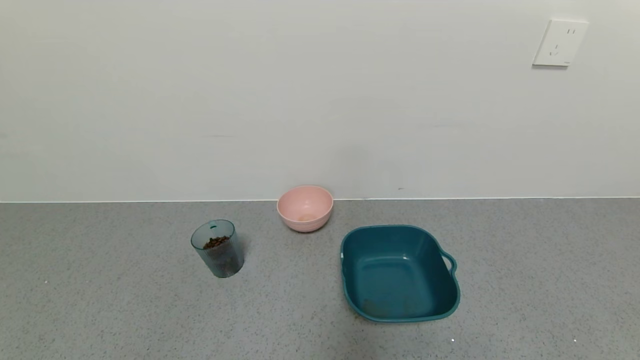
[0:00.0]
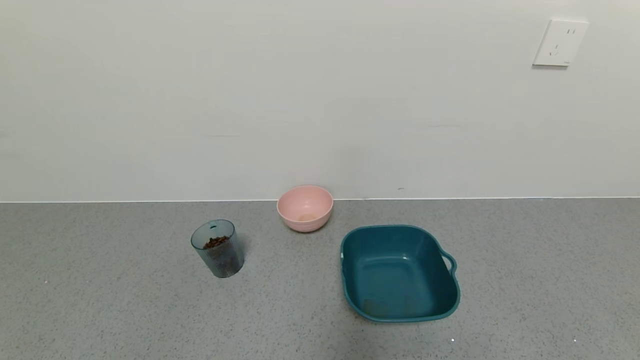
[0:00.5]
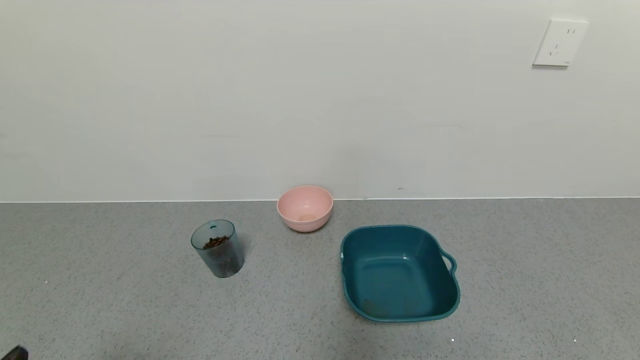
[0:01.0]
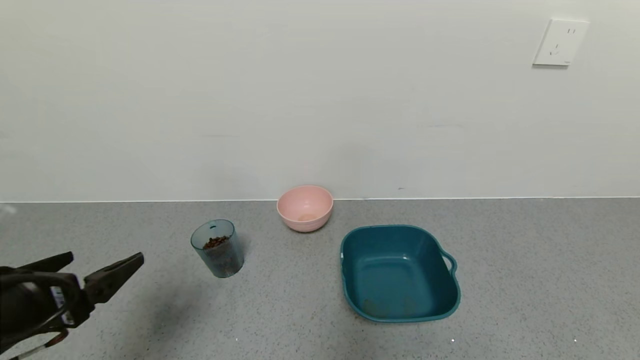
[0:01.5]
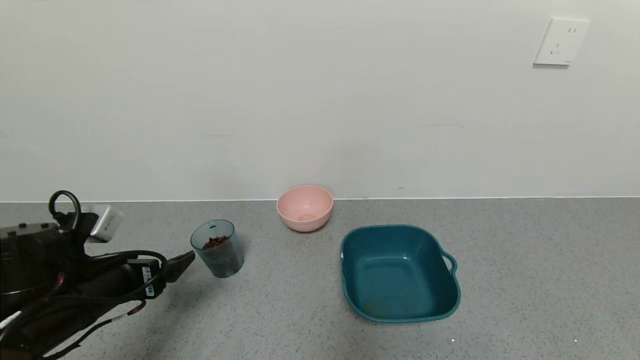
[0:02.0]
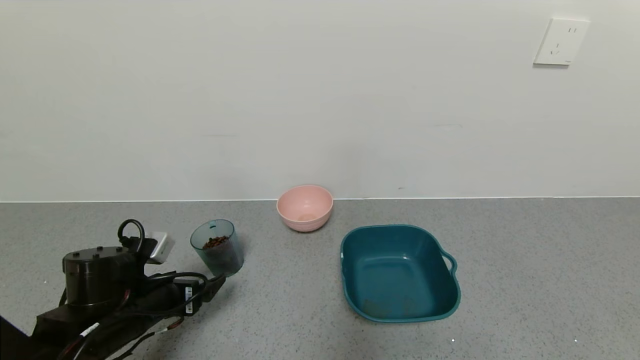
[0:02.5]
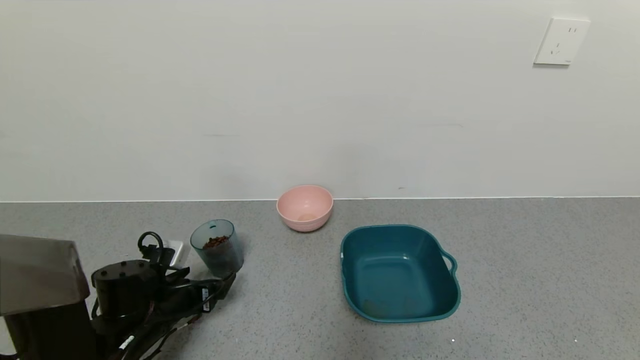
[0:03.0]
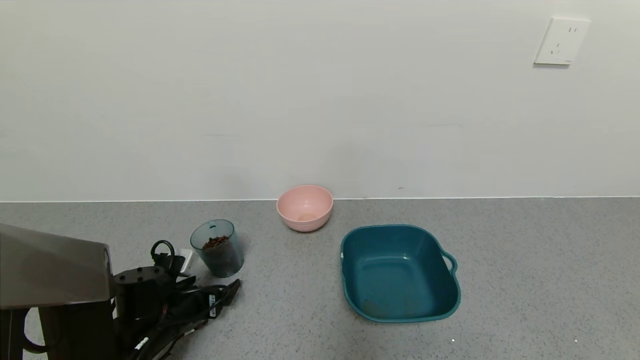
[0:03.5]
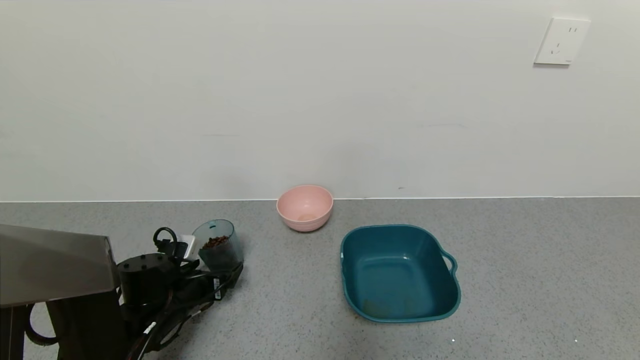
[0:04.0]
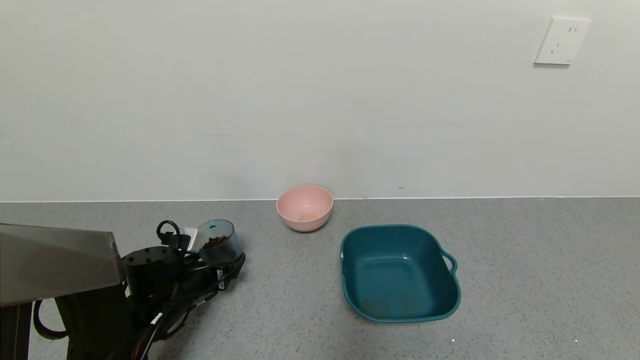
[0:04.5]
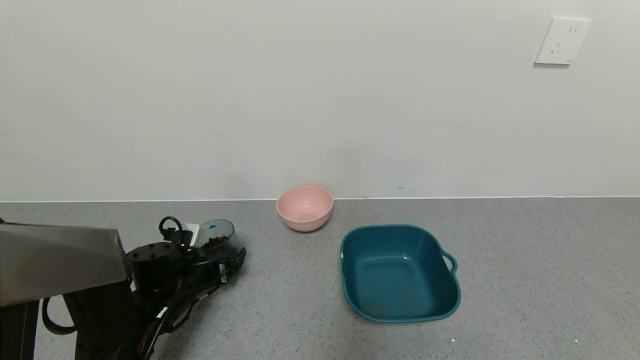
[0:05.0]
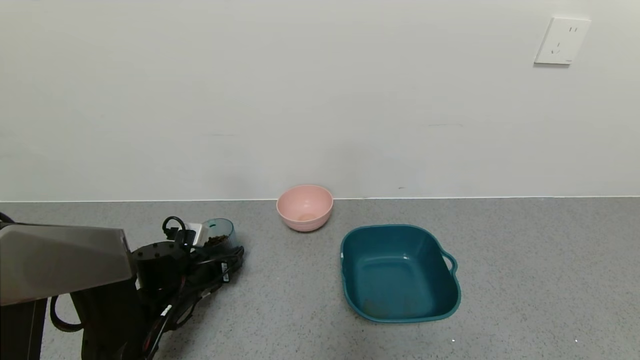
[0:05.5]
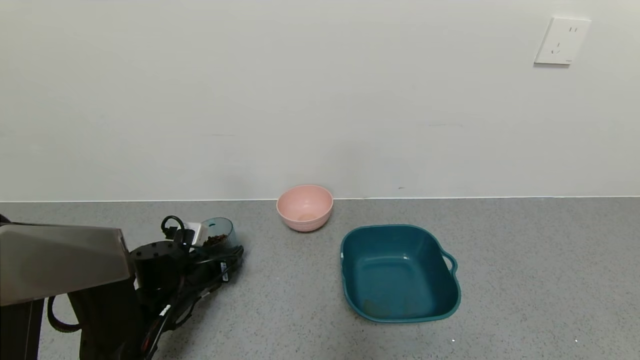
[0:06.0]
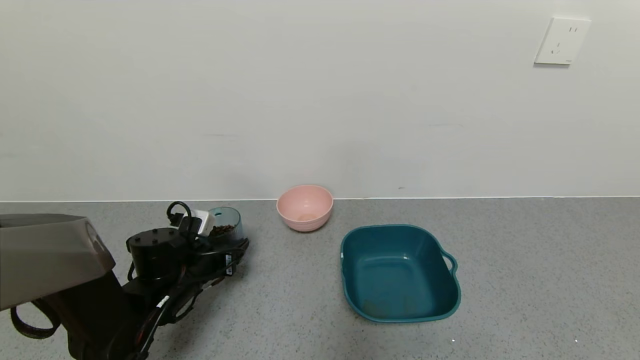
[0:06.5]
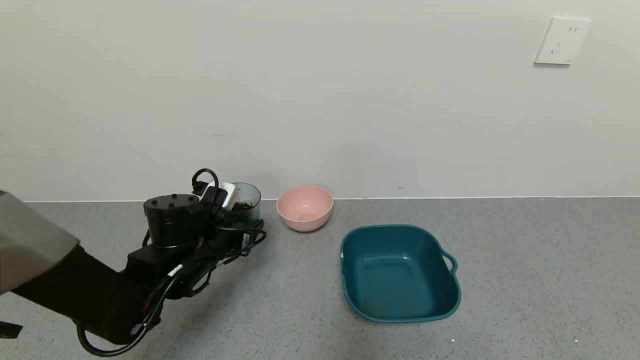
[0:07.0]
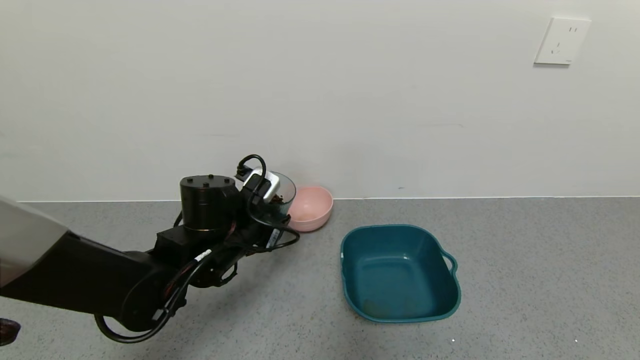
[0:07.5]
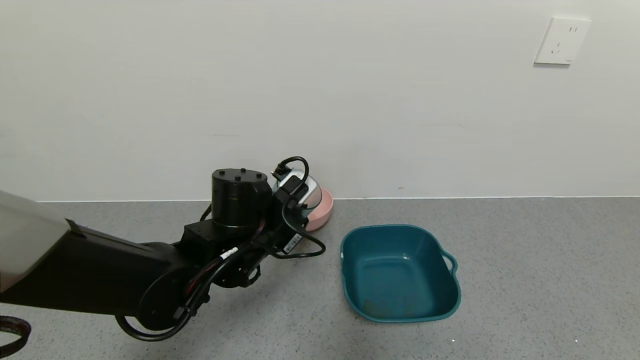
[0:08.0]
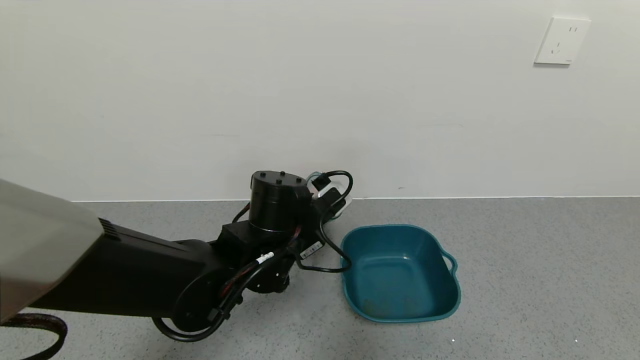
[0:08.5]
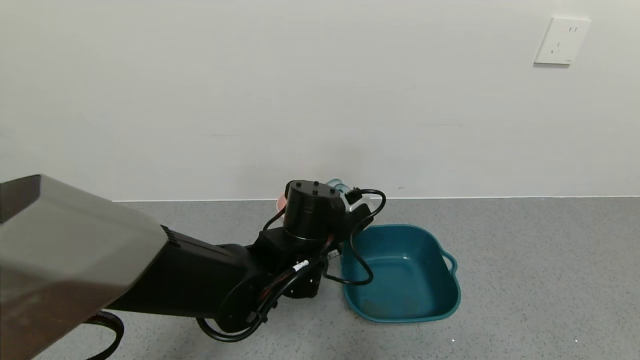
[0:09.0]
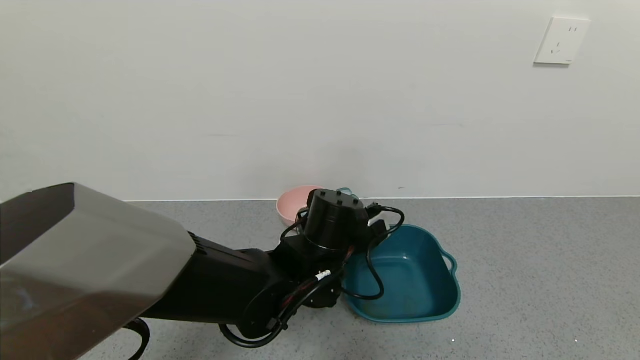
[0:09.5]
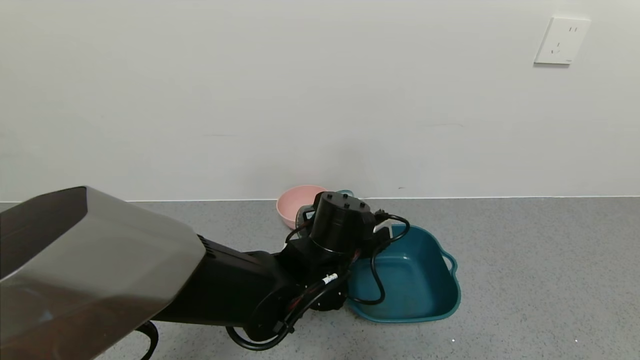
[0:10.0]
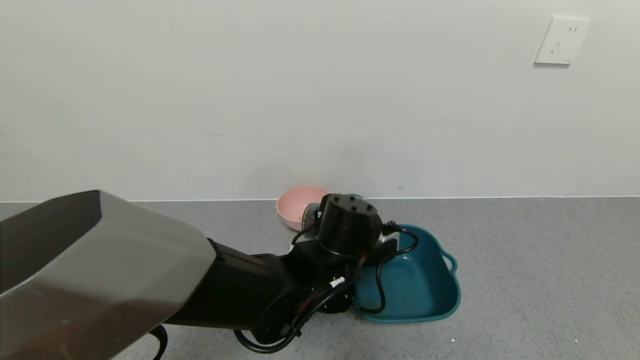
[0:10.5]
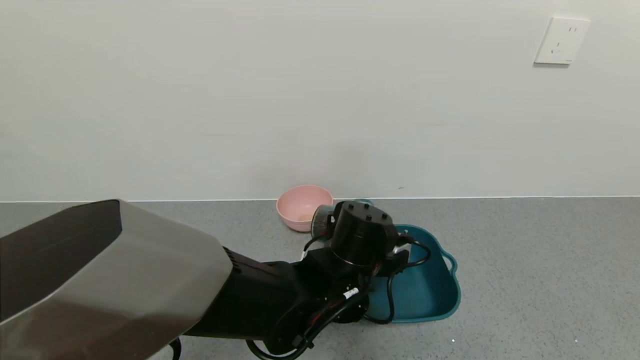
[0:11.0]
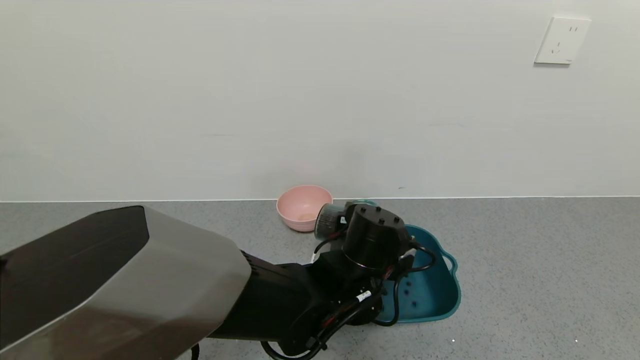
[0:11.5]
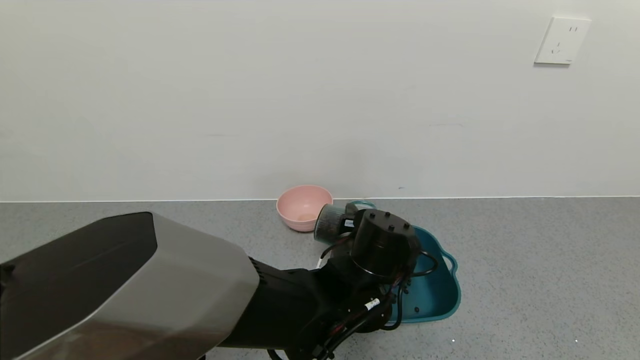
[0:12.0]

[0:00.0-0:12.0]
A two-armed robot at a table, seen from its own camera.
Task of the whole recording: use a gripper to pick up the cup and pour the solid into a bowl or tray.
Step, 0:00.0 to 0:06.0: Grasp the glass of coffee beans with the left gripper.
0:00.0 to 0:02.0: The left gripper is displaced forward by some 25 cm.
0:02.0 to 0:04.0: The left gripper moves downward and forward, some 15 cm.
0:04.0 to 0:06.0: The left gripper closes.
0:06.0 to 0:08.0: The left gripper is displaced to the right and upward by about 20 cm.
0:08.0 to 0:10.0: The left gripper moves to the right, about 10 cm.

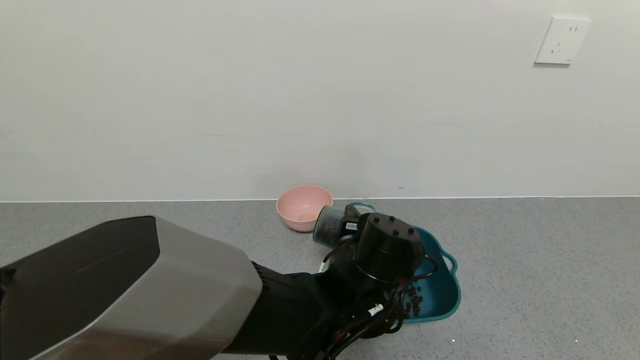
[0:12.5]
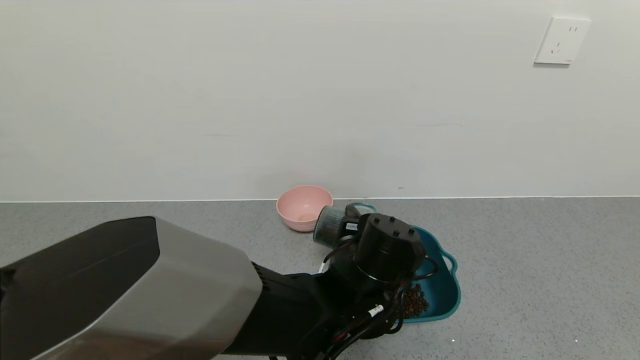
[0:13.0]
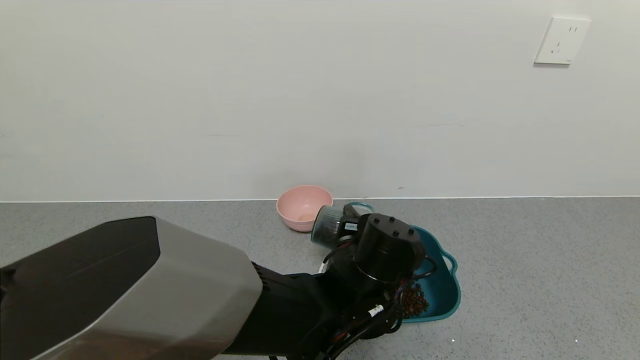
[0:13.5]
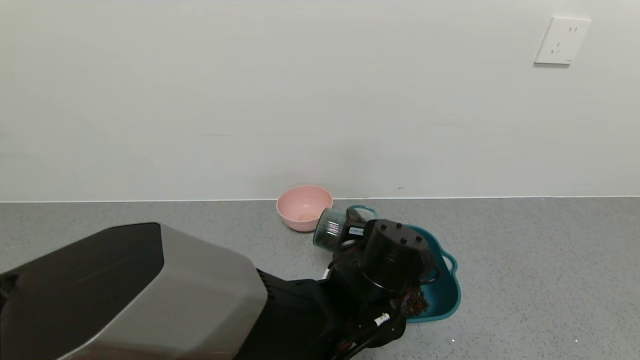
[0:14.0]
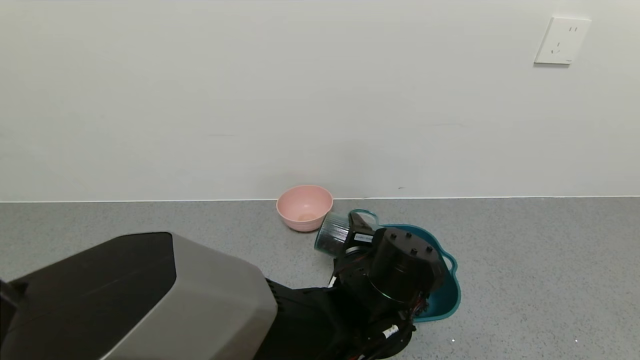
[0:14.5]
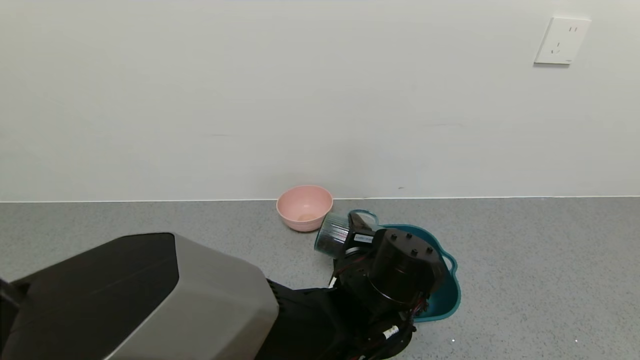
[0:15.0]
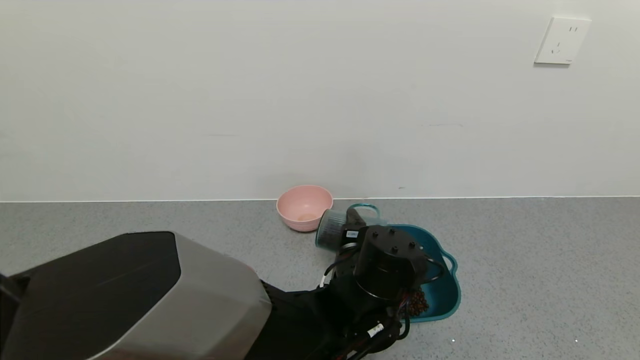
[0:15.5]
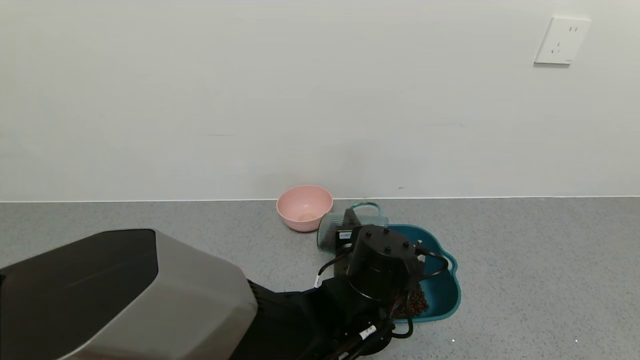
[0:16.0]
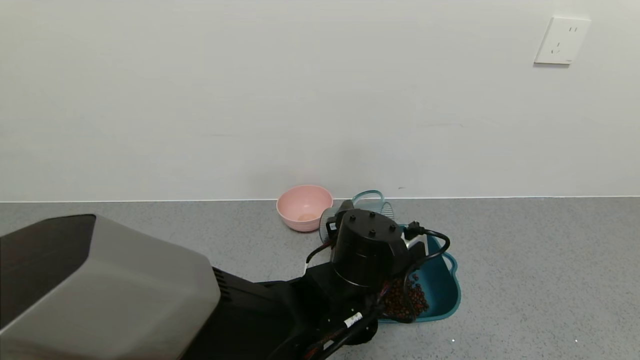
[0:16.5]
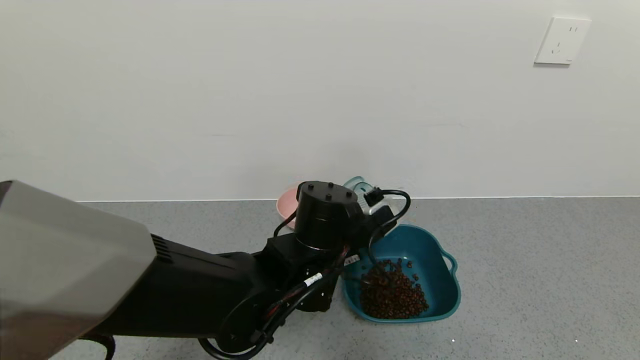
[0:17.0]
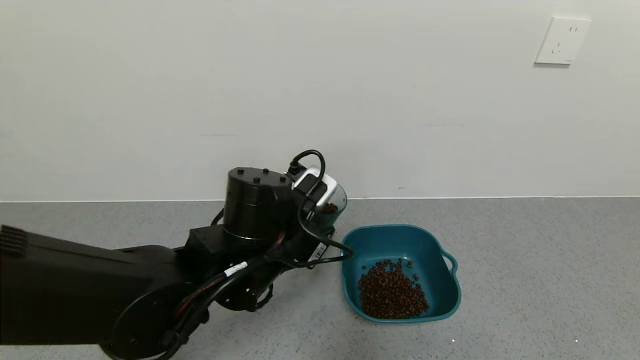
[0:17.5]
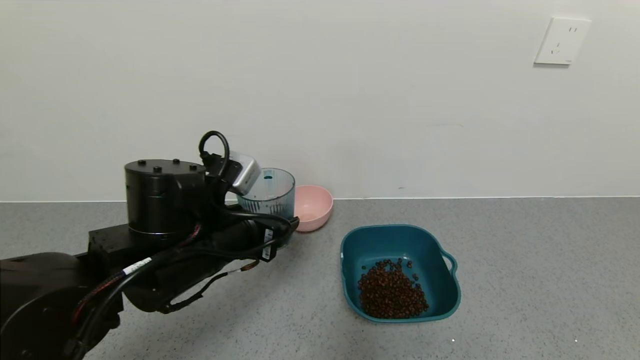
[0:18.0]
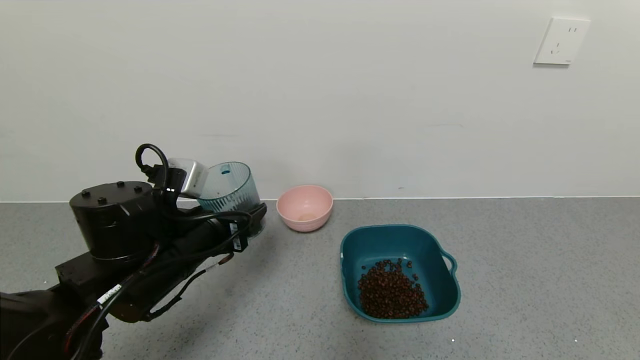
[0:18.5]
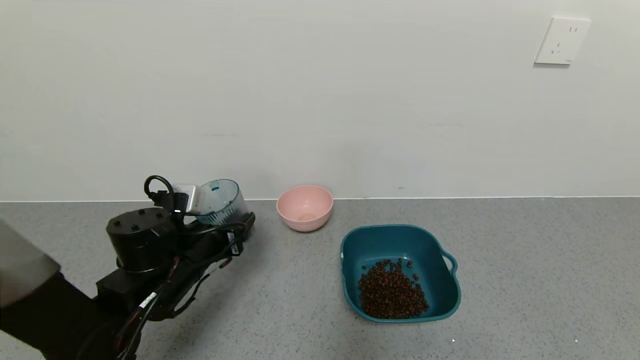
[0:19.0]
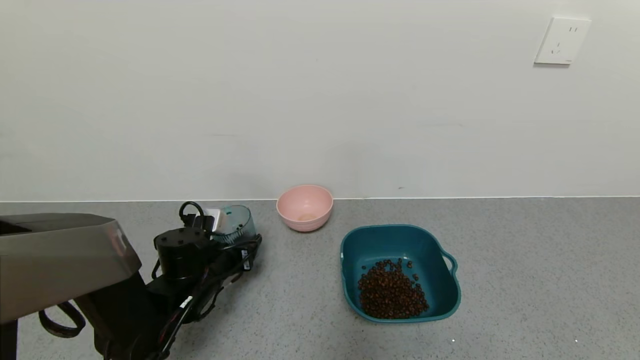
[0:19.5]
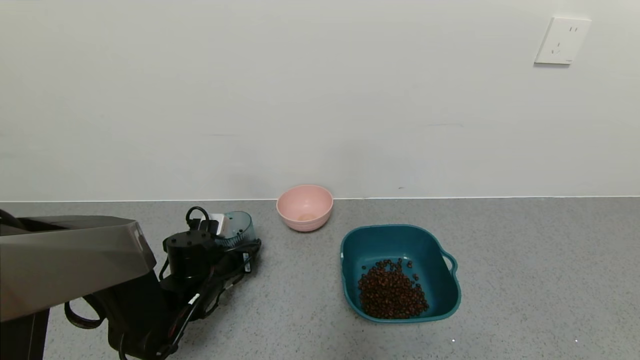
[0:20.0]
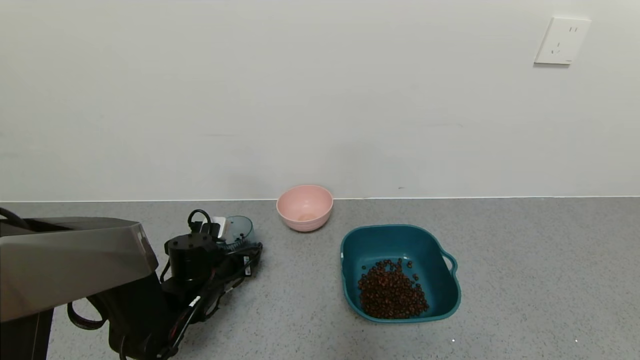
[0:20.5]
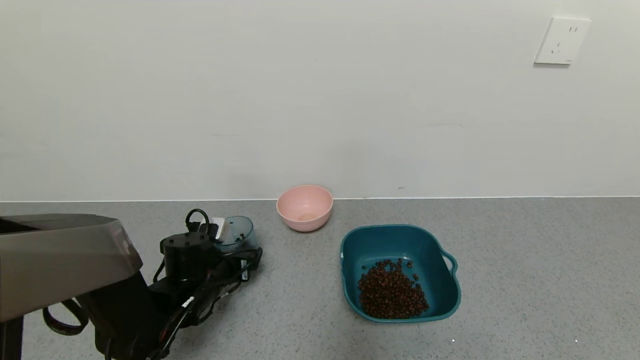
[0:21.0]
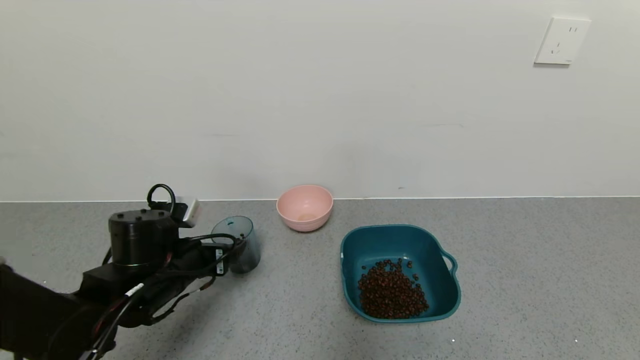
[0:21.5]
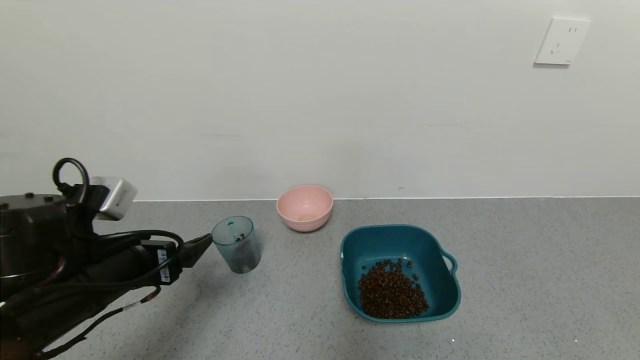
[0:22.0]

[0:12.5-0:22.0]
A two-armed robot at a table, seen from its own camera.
Task of the whole recording: use a gripper to pick up the cup and pour the solid into a bowl or tray.
Step, 0:12.5 to 0:17.0: Pour the coffee beans into the green bowl with the left gripper.
Step, 0:17.5 to 0:21.0: Place the glass cup with the left gripper.
0:12.5 to 0:14.5: The grippers move only a little.
0:16.5 to 0:18.0: The left gripper travels to the left by roughly 15 cm.
0:18.0 to 0:20.0: The left gripper heads downward, forward and to the left, covering roughly 20 cm.
0:20.0 to 0:22.0: The left gripper travels upward and backward by approximately 20 cm, and opens.
